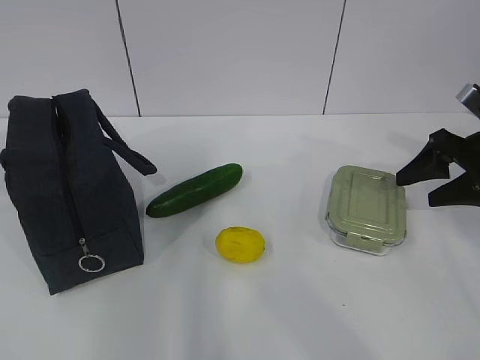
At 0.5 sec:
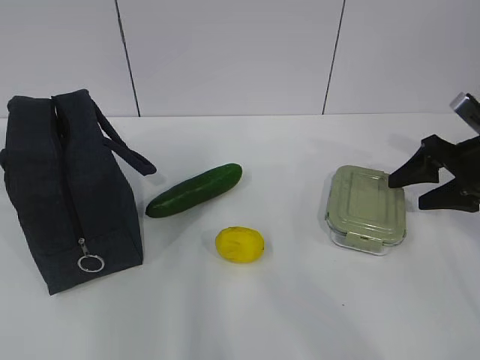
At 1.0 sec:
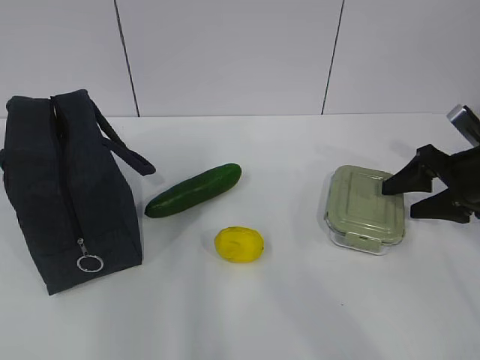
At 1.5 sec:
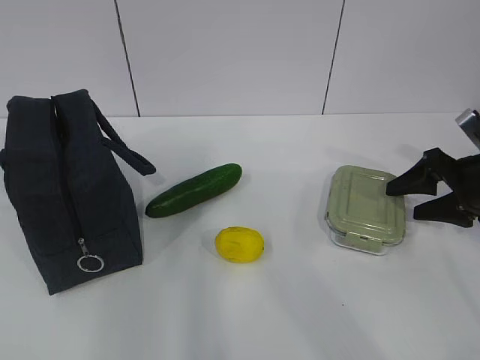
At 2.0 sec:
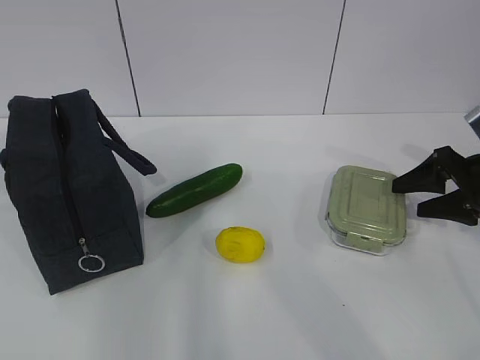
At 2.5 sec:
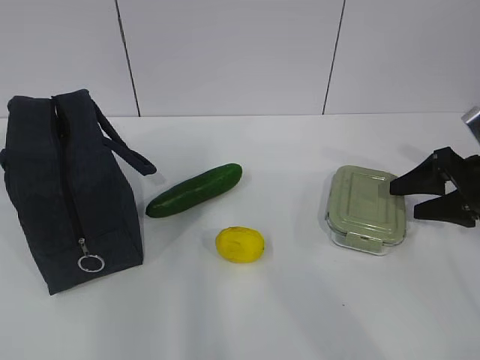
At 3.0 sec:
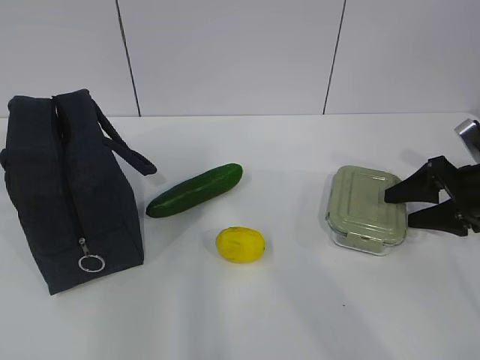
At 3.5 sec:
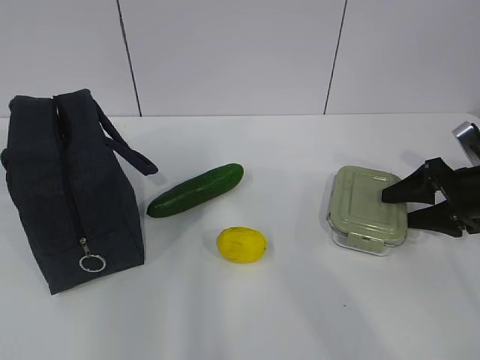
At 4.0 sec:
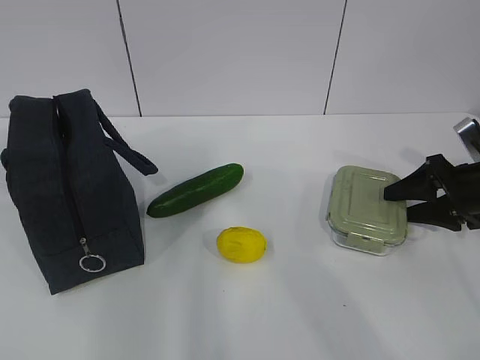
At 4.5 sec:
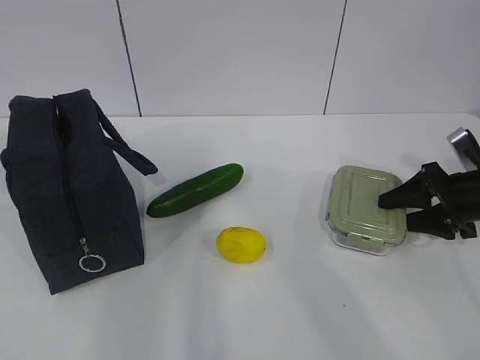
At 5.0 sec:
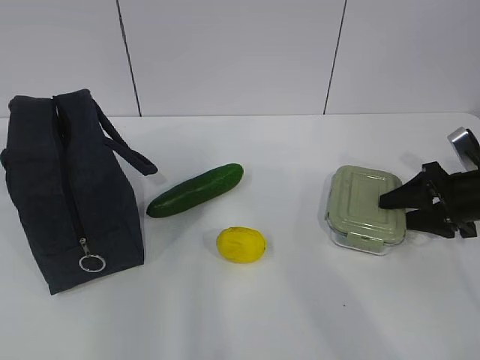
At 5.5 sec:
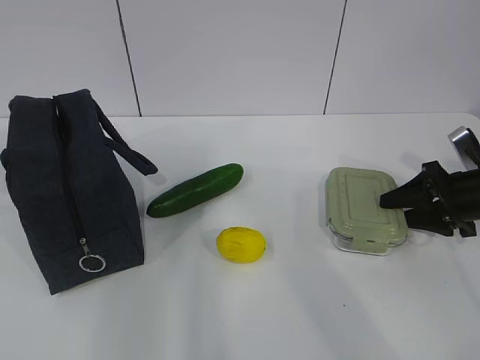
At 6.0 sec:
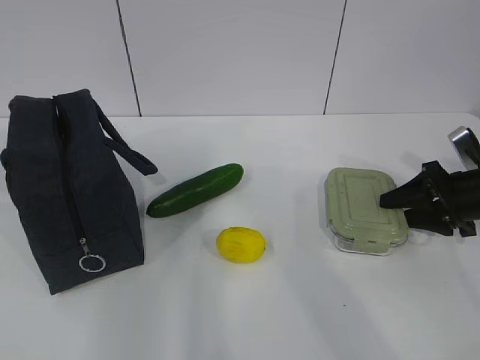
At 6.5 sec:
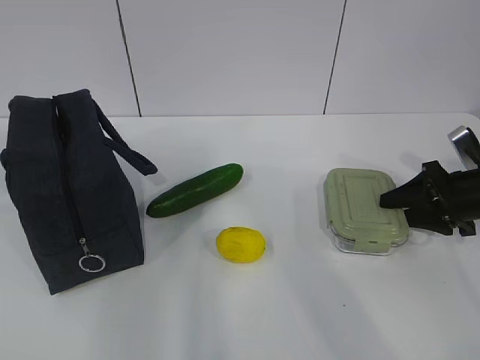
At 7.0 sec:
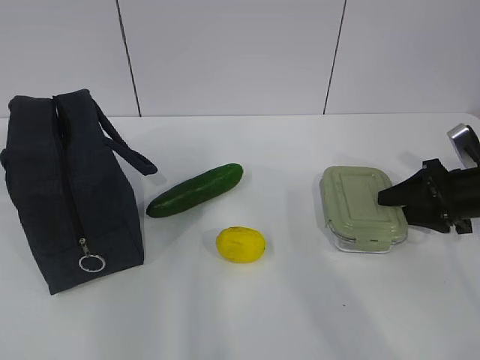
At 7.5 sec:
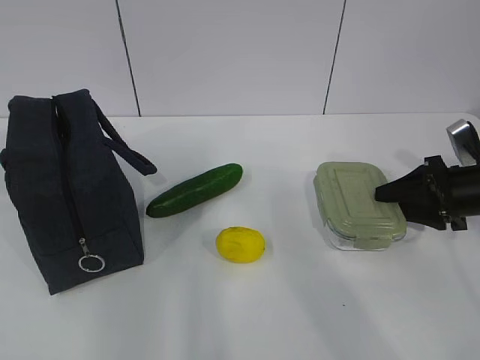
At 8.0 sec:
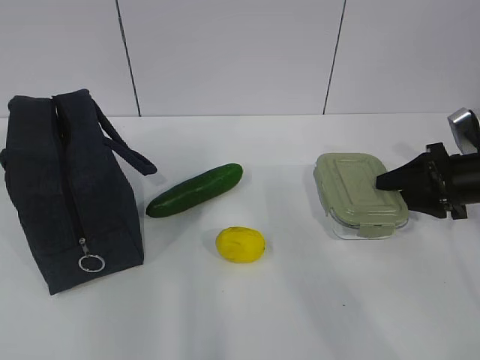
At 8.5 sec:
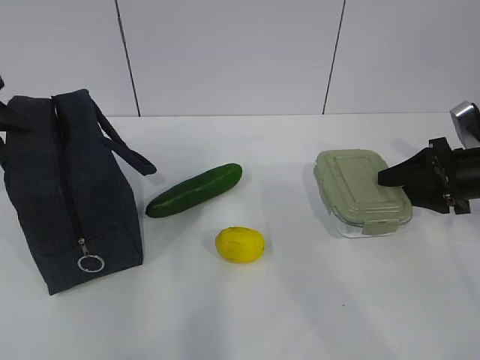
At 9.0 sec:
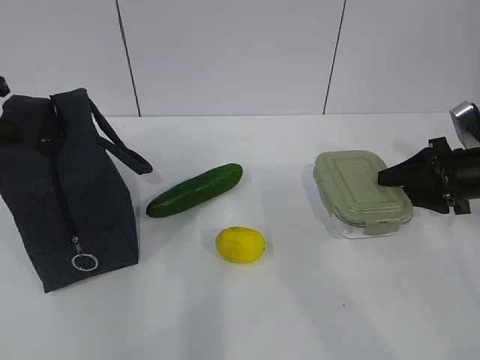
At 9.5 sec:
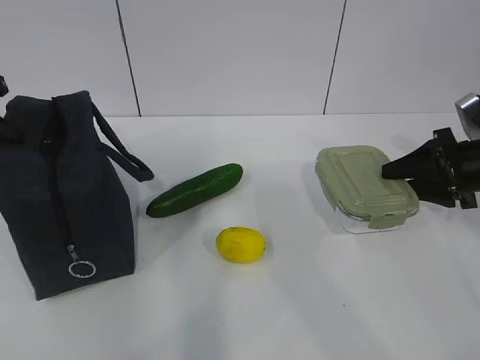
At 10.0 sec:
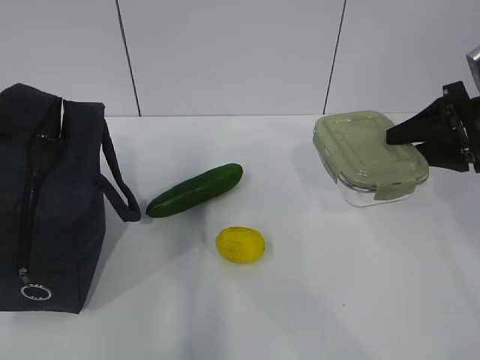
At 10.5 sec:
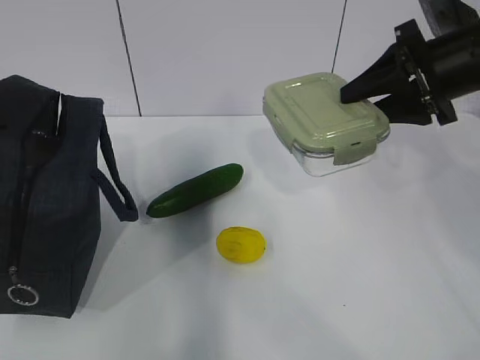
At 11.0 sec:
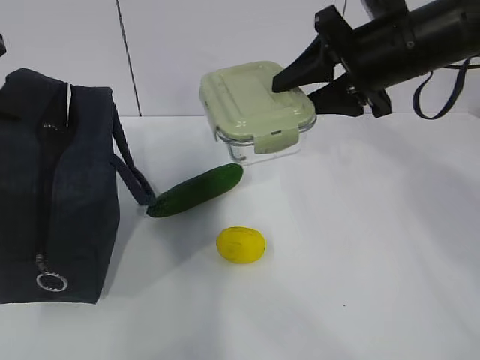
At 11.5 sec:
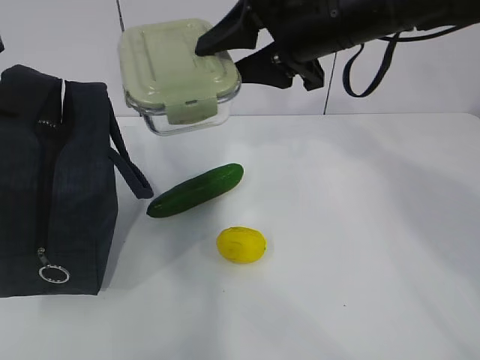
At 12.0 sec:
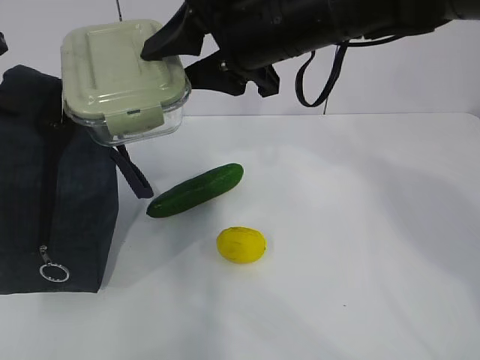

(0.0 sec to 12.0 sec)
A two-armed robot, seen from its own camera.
Step, 0.0 sec - 3.0 sec: Grab the lunch box with your right hand.
Step, 4.0 sec - 8.5 sec: Grab the lunch bag with your left hand.
Step, 9.0 sec - 10.5 sec: Place it into the bag with your right hand.
0.0 sec - 2.0 sec: The grippers move only a little.
2.0 sec - 4.0 sec: The grippers move only a little.
4.0 sec - 6.0 sec: Neither gripper changes place.
6.0 sec - 8.0 sec: There are only small adjustments of the grippers.
8.0 sec - 10.0 sec: The right gripper heads upward, covering approximately 10 cm, while the left gripper closes its fingers.
10.0 sec - 12.0 sec: The right gripper shifts roughly 30 cm to the left and upward.

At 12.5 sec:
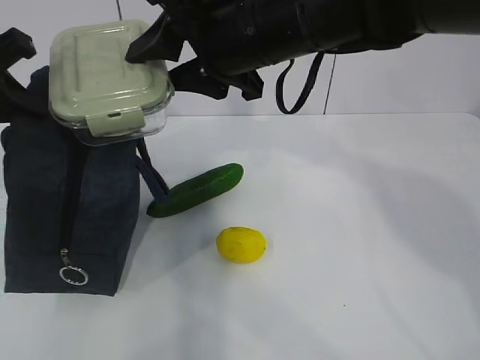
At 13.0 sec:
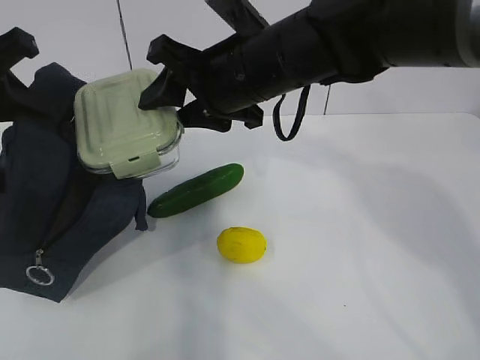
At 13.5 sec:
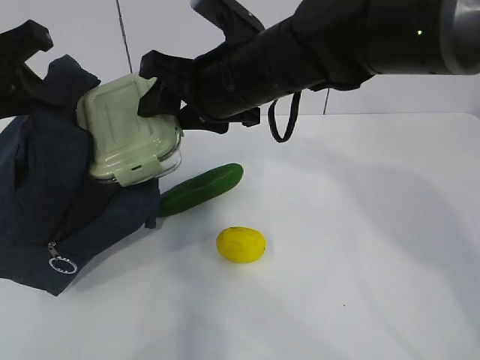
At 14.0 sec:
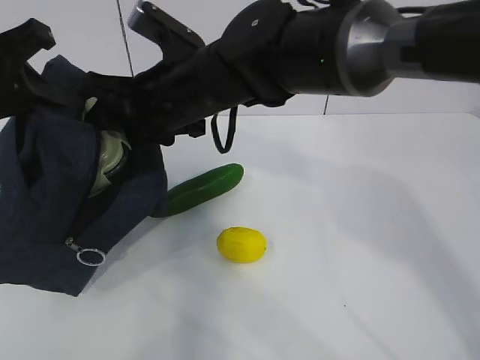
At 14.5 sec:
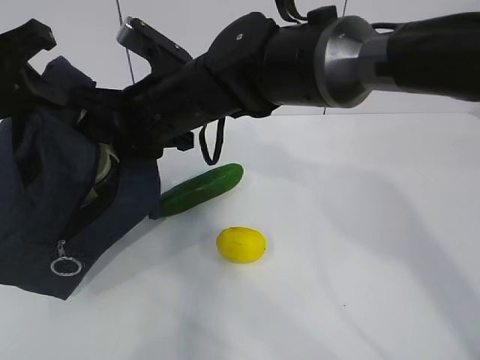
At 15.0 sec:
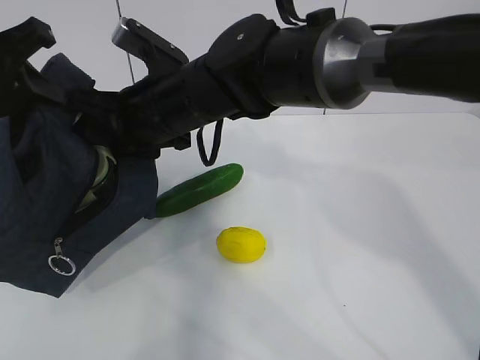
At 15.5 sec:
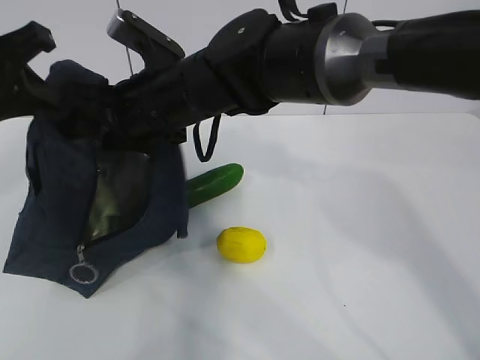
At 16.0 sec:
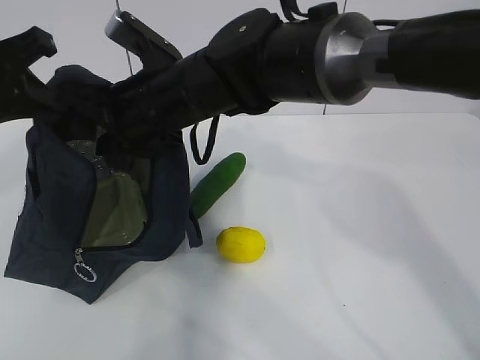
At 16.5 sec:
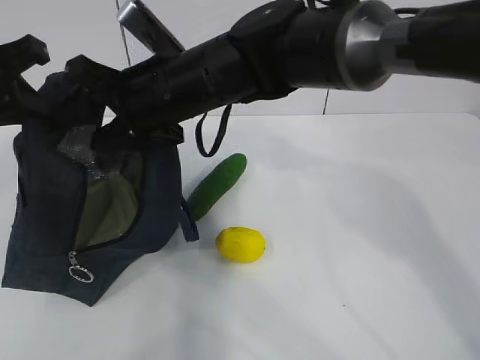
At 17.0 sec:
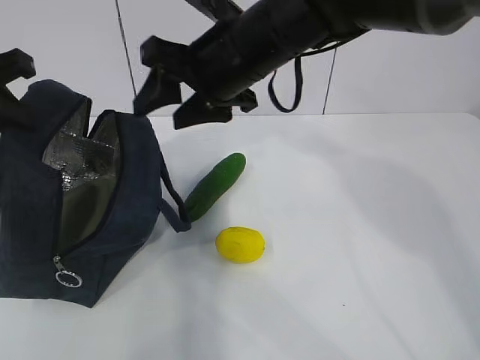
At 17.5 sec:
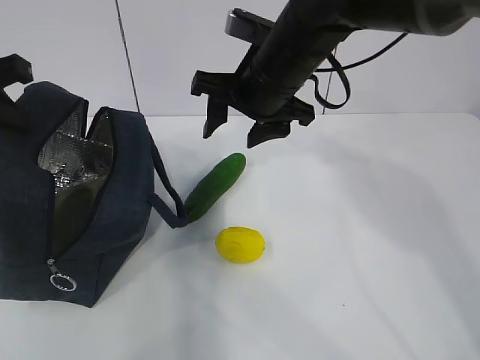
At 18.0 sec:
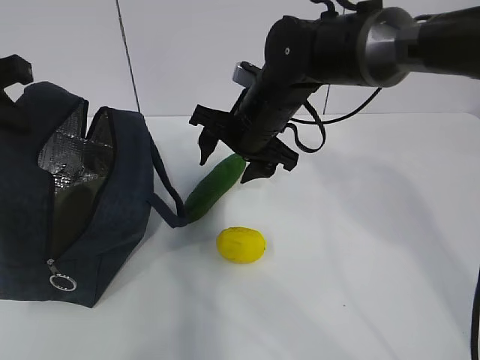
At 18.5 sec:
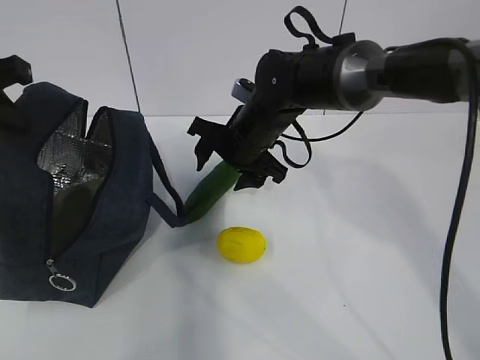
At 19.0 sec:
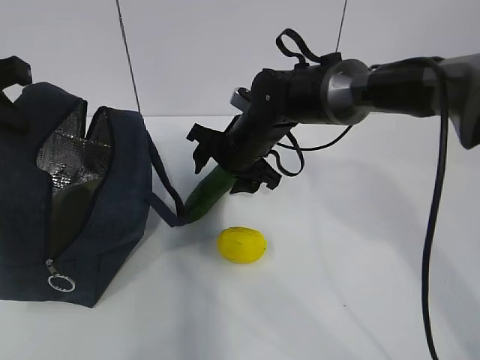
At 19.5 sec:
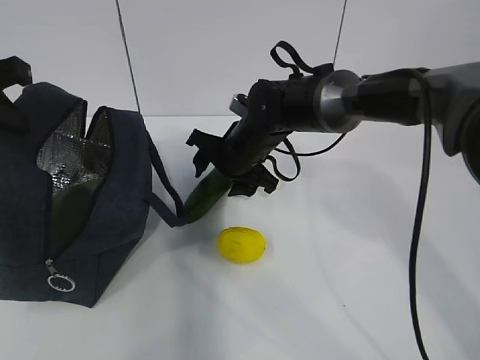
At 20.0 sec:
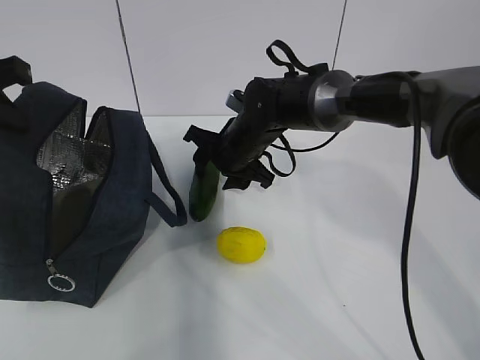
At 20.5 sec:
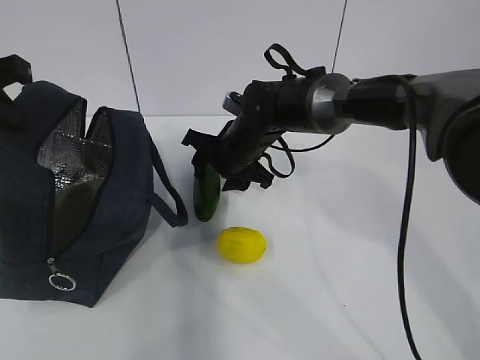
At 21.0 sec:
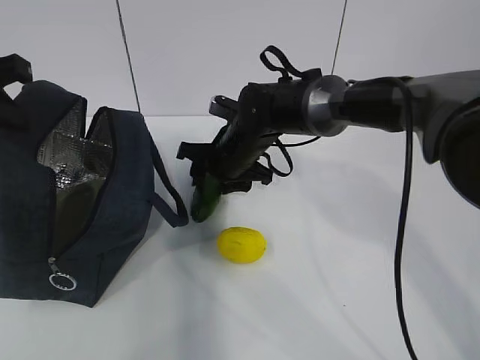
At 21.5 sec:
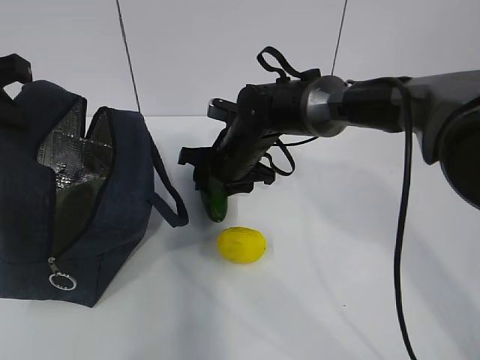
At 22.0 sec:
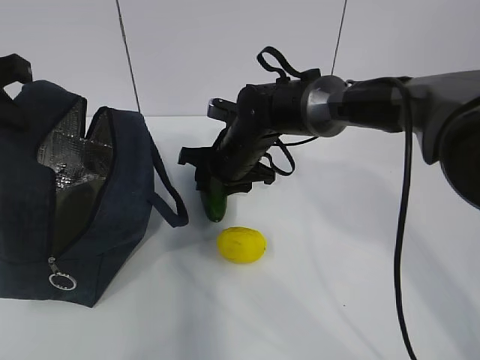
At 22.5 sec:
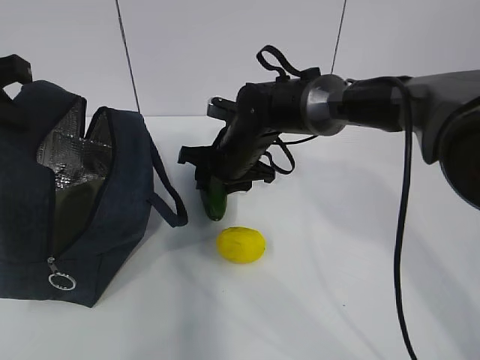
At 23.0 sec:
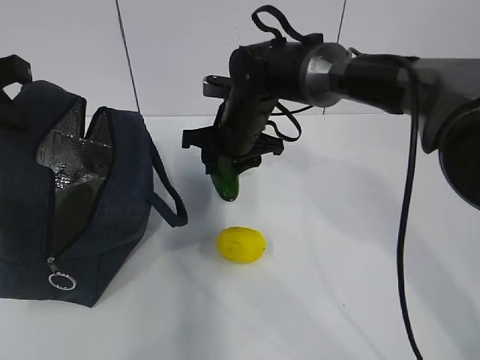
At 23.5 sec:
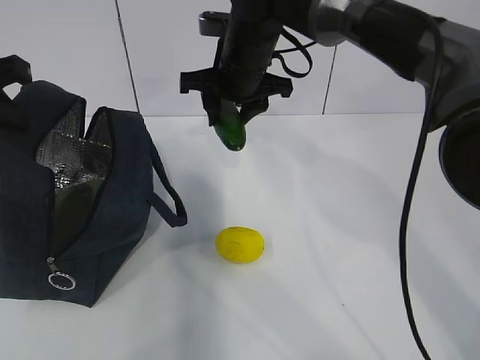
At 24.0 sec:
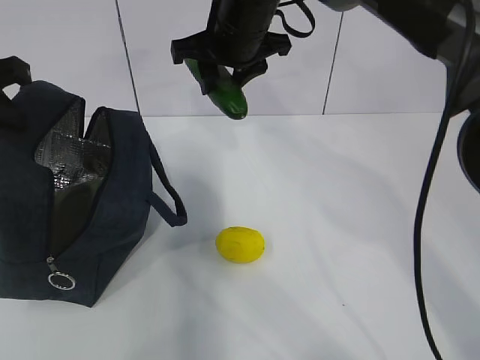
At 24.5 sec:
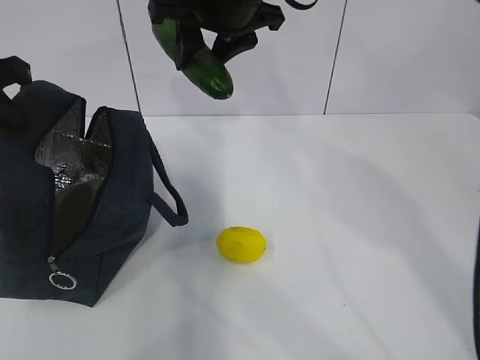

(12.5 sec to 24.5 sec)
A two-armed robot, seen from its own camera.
Step, 12.5 sec - 16.5 sec: Grab the cucumber with your right hand.
Step, 17.0 sec - 20.5 sec: Place it into the bag with your right hand.
12.5 sec - 14.5 sec: The right gripper is displaced to the left and downward by approximately 10 cm.
14.5 sec - 16.5 sec: The grippers stay close to where they were, moving slightly.
16.5 sec - 18.5 sec: The right gripper heads downward, to the right and forward, covering some 15 cm.
18.5 sec - 22.5 sec: The grippers move only a little.
22.5 sec - 24.5 sec: The right gripper shifts some 20 cm upward.

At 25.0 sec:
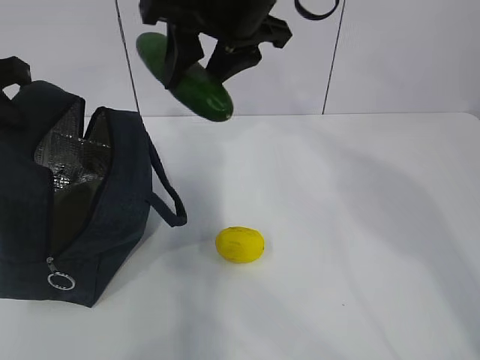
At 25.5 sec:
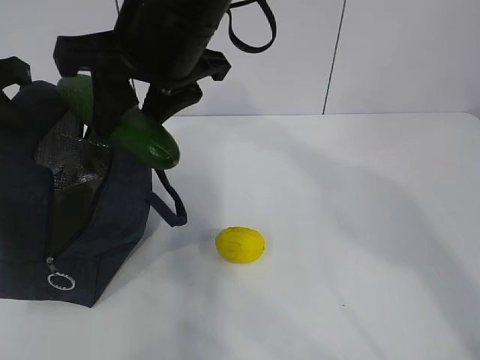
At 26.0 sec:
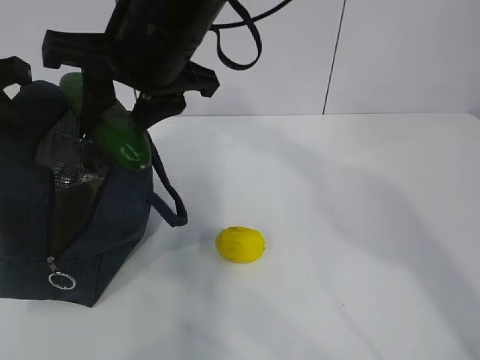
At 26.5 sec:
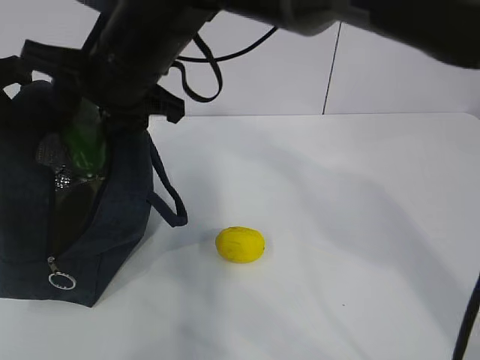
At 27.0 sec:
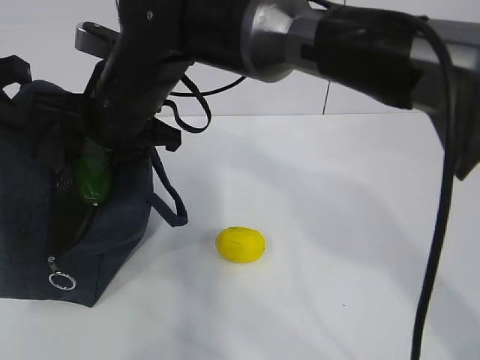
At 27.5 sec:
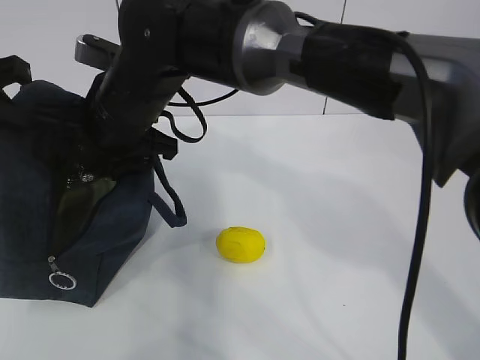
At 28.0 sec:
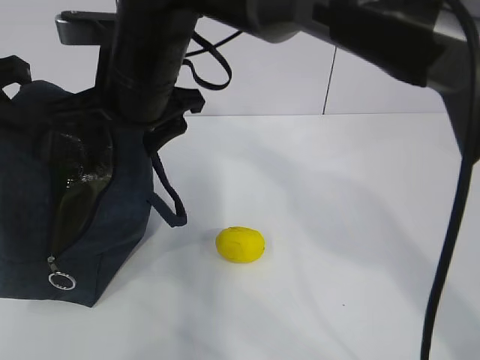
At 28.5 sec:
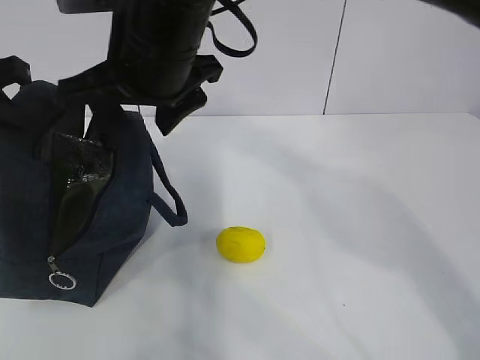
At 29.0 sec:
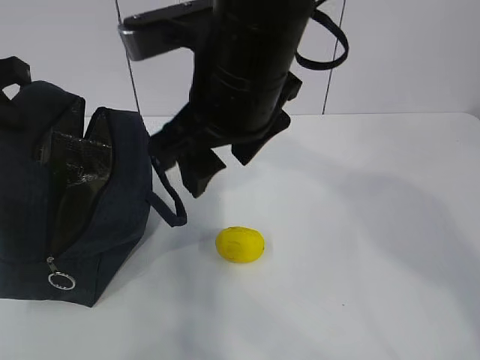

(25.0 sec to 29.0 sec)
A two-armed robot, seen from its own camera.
Step, 28.0 sec - 28.5 sec: Grab the lunch bag with your right hand.
25.0 sec - 27.0 sec: The right gripper moves to the left and downward, approximately 15 cm.
27.0 sec - 29.0 sec: The right gripper moves to the right, backward and upward, approximately 15 cm.
